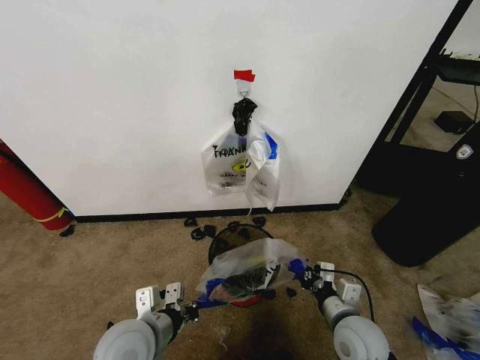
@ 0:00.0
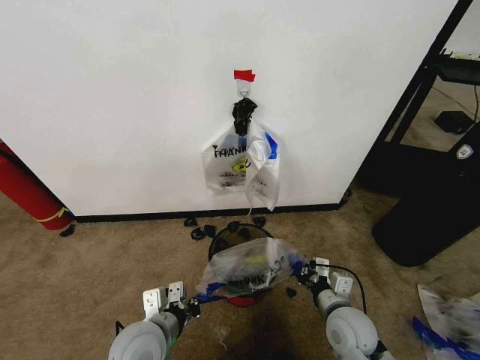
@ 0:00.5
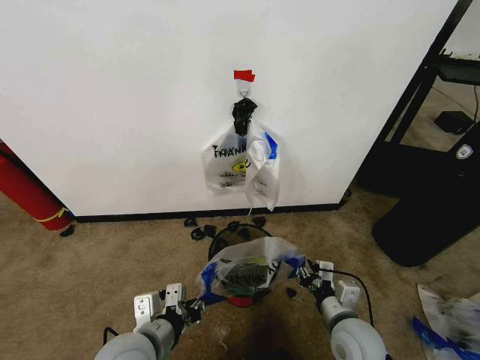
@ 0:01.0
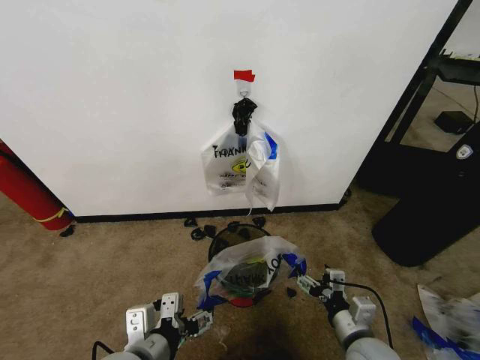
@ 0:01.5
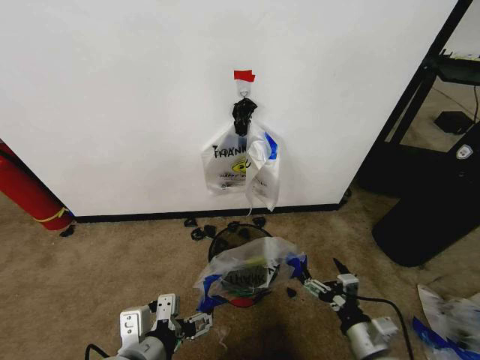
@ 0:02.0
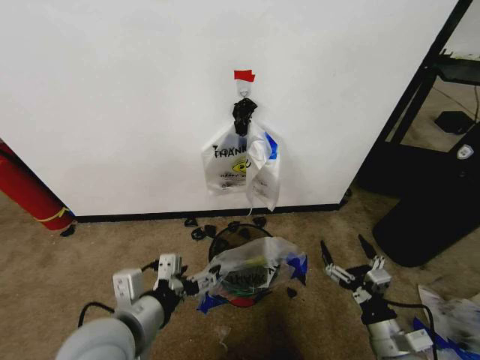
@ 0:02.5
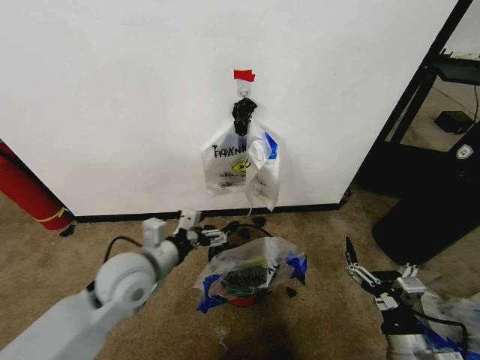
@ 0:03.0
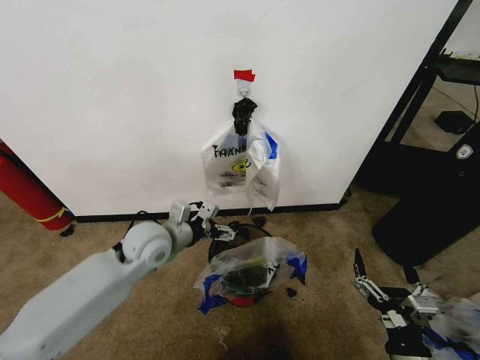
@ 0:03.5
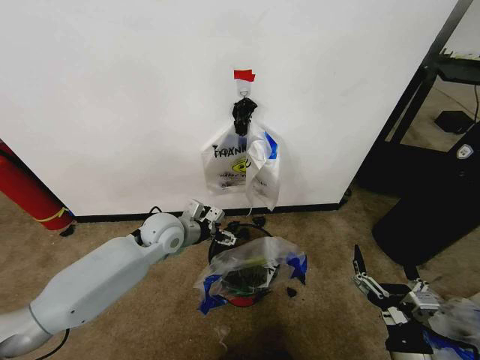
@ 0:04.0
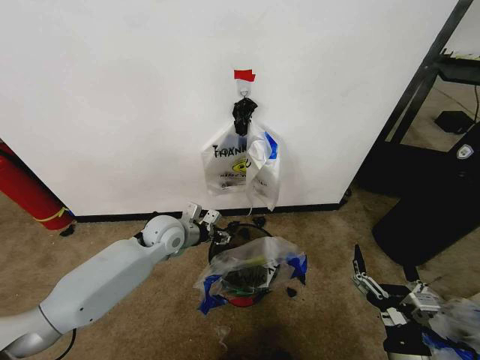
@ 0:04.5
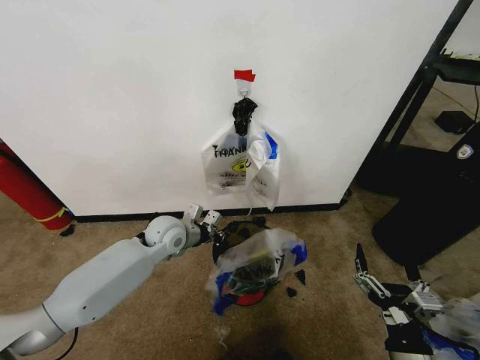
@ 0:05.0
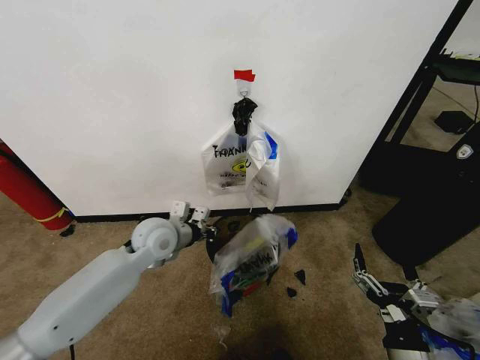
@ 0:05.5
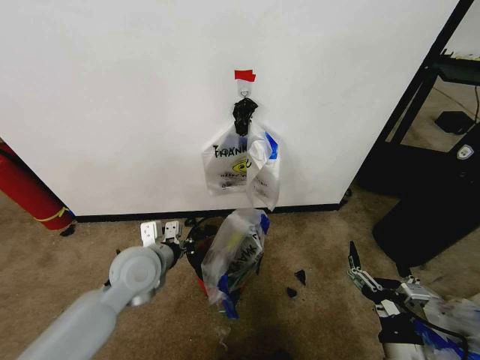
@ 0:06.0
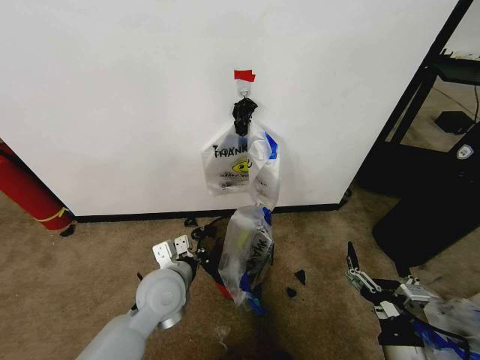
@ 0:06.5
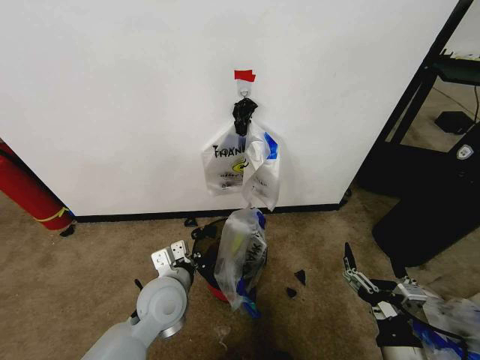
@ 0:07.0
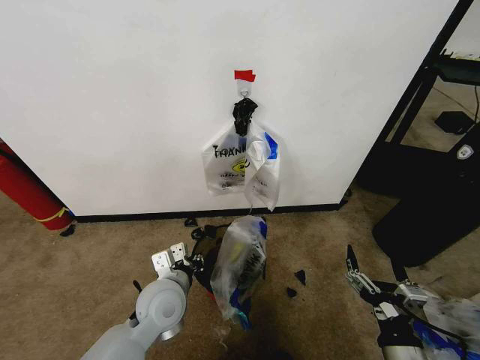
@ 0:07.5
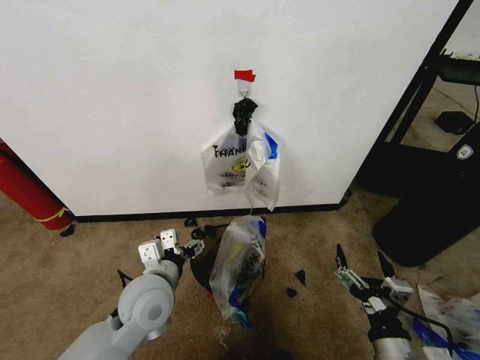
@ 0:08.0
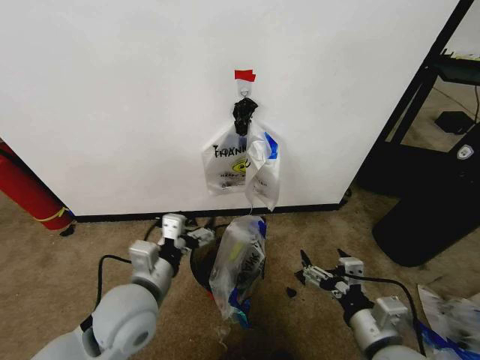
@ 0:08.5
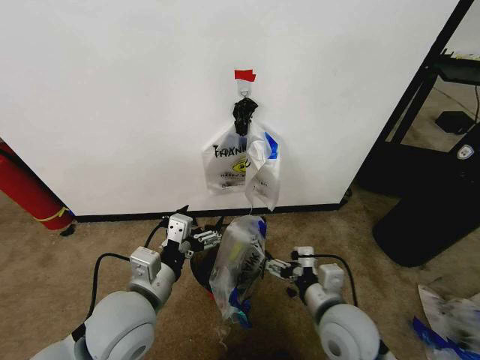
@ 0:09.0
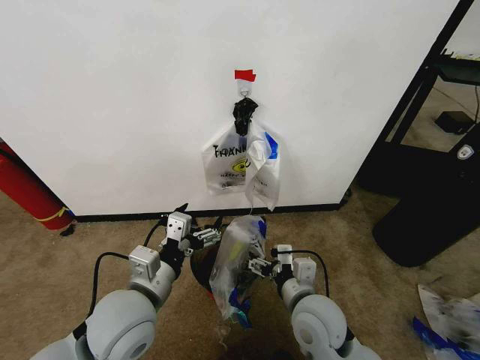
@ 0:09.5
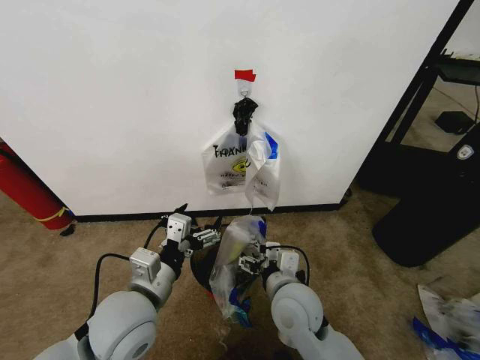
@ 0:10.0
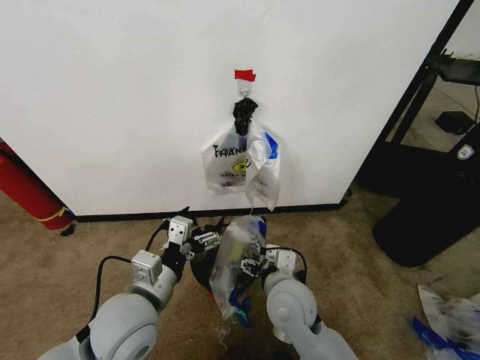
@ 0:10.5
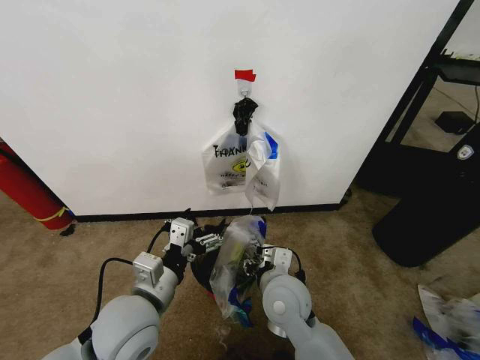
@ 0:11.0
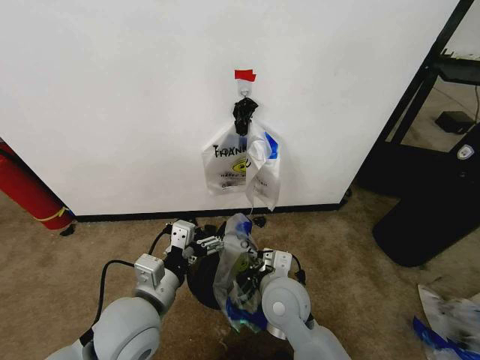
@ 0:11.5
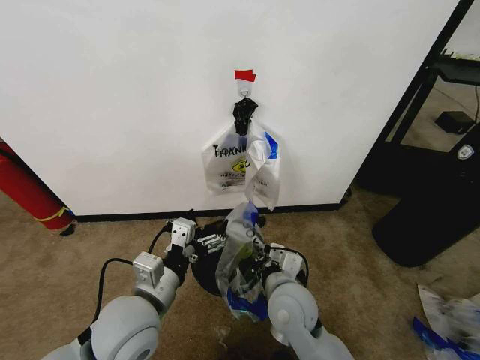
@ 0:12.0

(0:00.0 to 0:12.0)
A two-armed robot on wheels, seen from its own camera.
Task of the whole recording: Pick up the garbage bag from the wall and place it over the trash bin.
0:00.0 - 0:02.0: The right gripper shifts roughly 5 cm backward, and opens up. Meanwhile the left gripper travels backward and upward by approximately 10 cm, and opens its fingers.
0:02.0 - 0:04.0: The left gripper shifts roughly 30 cm forward, while the right gripper goes about 5 cm backward.
0:04.0 - 0:06.0: The left gripper goes about 10 cm backward, and closes its fingers.
0:06.0 - 0:08.0: The left gripper heads backward, covering approximately 5 cm, and opens its fingers.
0:08.0 - 0:10.0: The left gripper shifts by approximately 5 cm; the right gripper goes some 20 cm to the left and forward.
0:10.0 - 0:12.0: The right gripper closes.

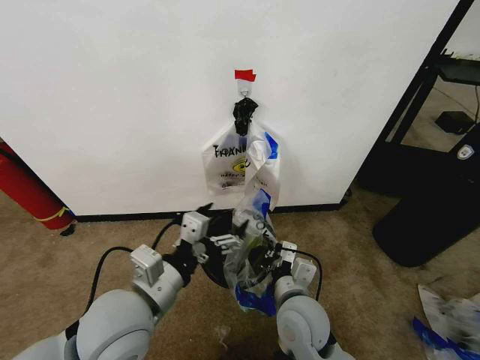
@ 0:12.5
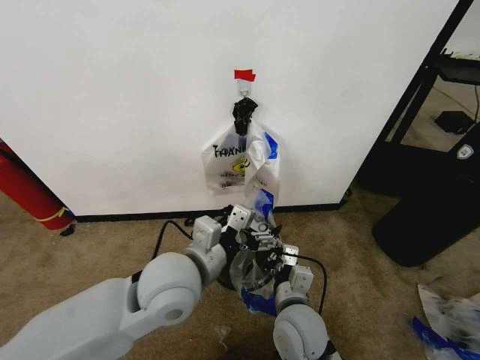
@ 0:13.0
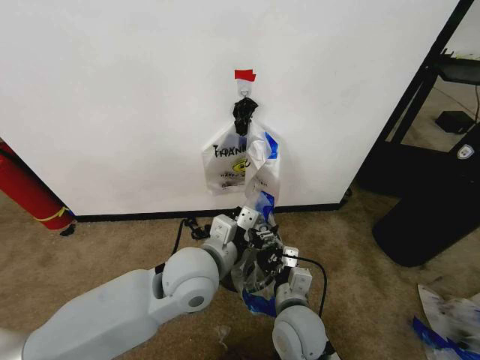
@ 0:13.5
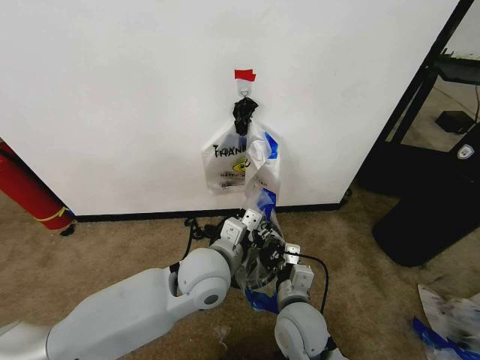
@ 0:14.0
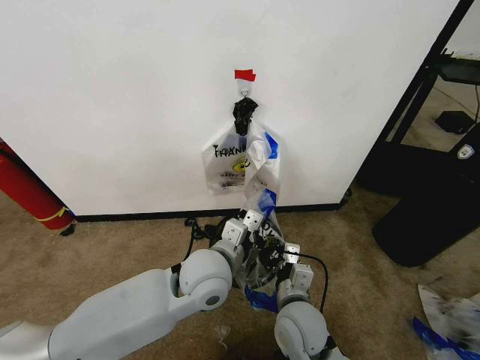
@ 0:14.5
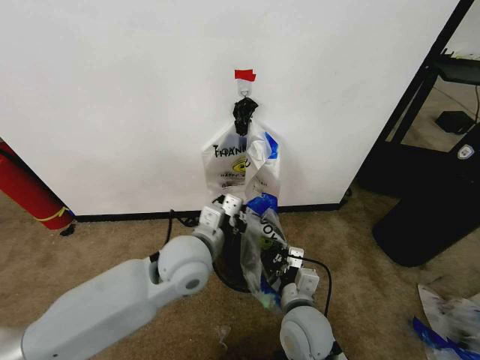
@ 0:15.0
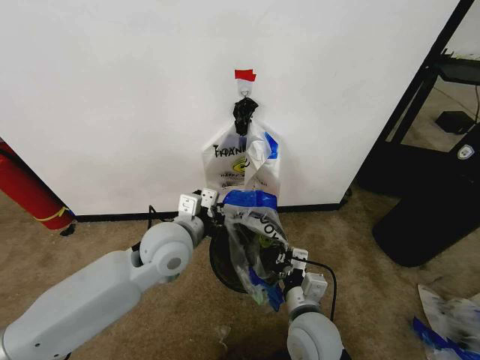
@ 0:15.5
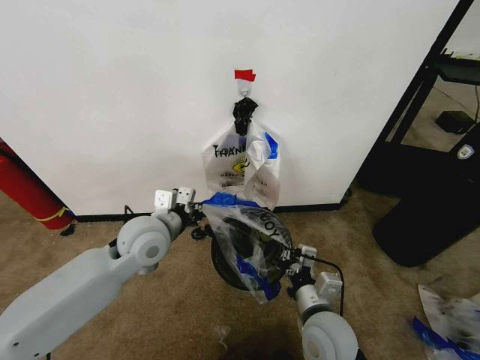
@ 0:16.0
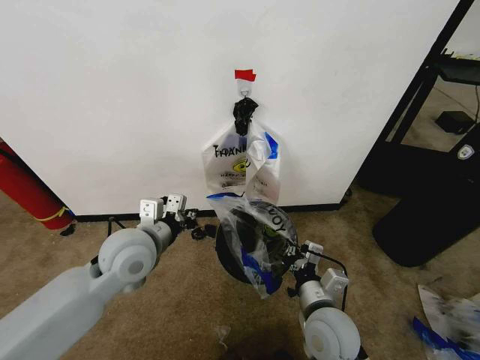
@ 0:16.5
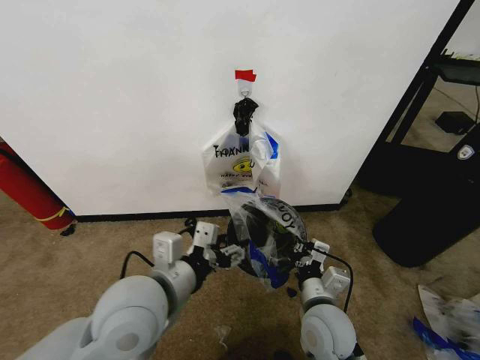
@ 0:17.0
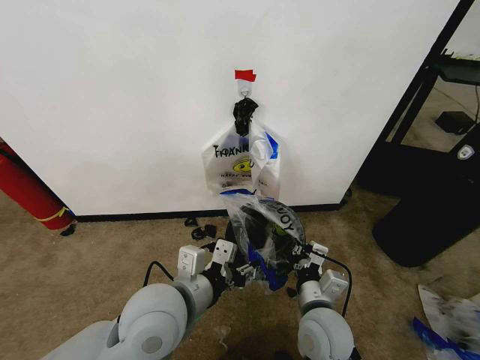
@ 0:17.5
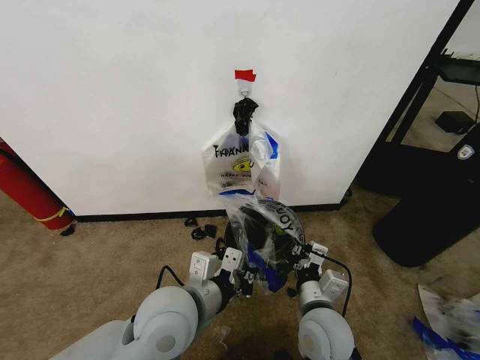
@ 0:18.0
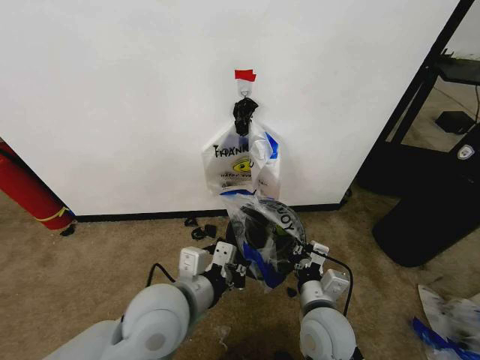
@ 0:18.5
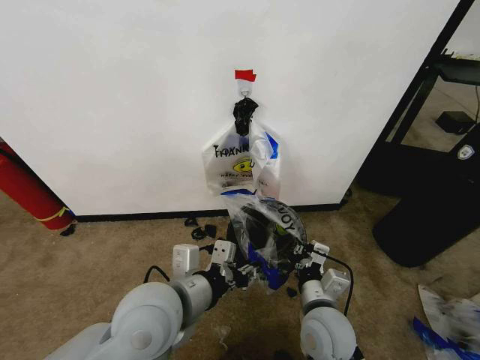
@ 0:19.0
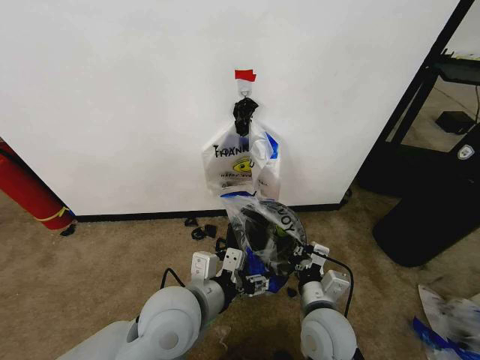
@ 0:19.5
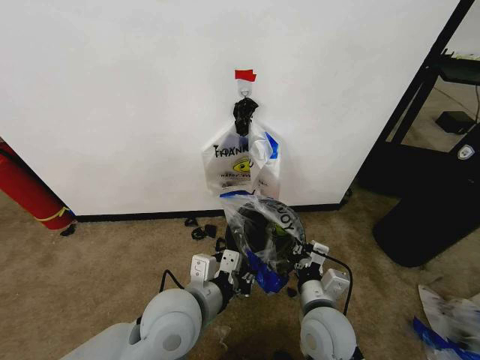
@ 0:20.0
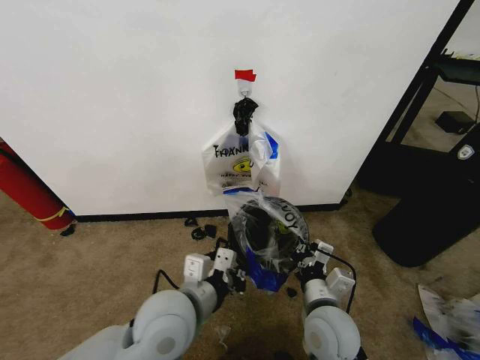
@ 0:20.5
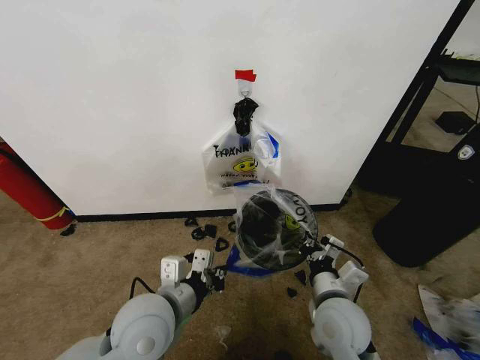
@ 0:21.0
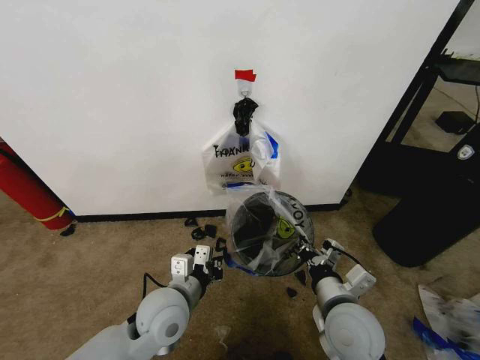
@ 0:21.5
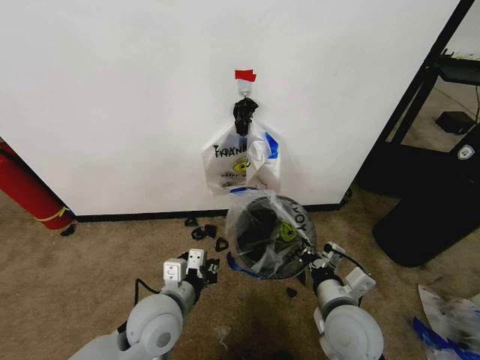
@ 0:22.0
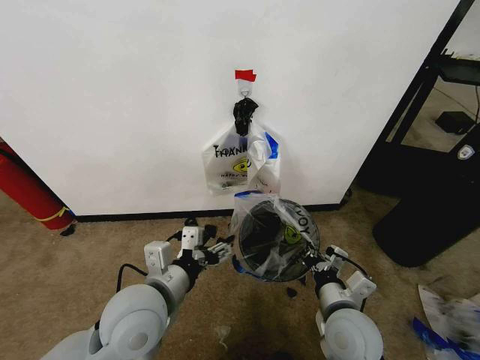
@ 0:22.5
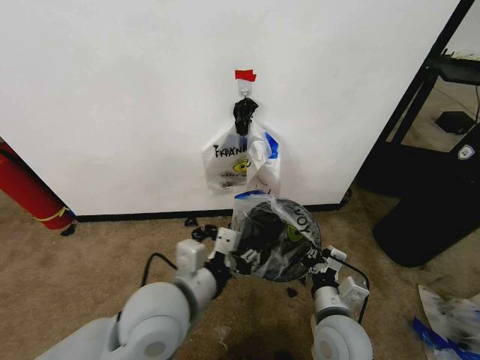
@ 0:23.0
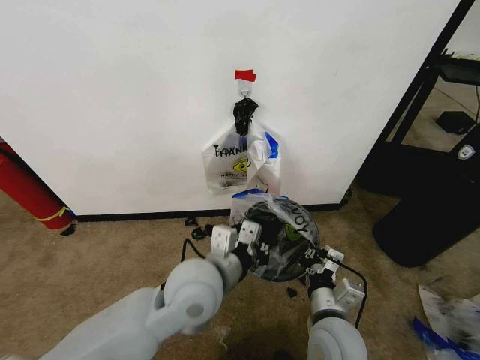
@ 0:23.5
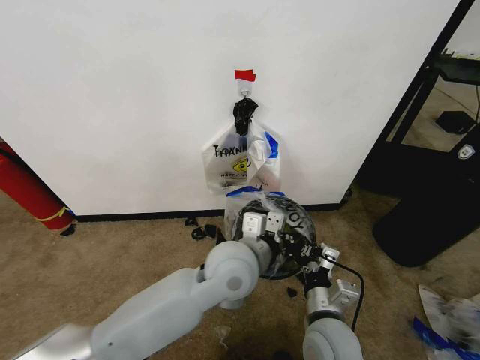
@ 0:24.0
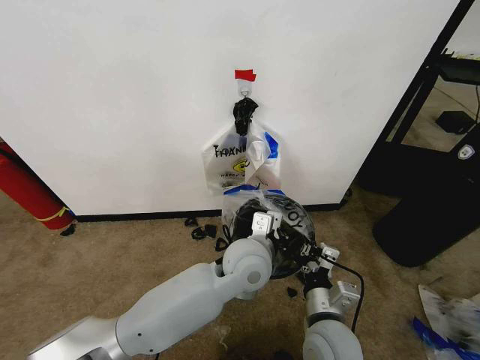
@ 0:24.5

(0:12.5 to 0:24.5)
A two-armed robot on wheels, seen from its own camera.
Task of the whole recording: Pick up the garbage bag from the wall and place it over the trash bin.
0:12.5 - 0:14.5: The left gripper heads to the right and forward, covering approximately 15 cm, and closes its fingers.
0:14.5 - 0:16.5: The left gripper heads to the left, covering about 15 cm. Meanwhile the right gripper goes roughly 5 cm to the right.
0:16.5 - 0:18.5: The left gripper shifts some 15 cm backward and to the right, and opens, then closes again.
0:18.5 - 0:20.5: The left gripper opens, then closes once more.
0:20.5 - 0:22.5: The left gripper reaches some 5 cm downward, then returns, and opens its fingers.
0:22.5 - 0:24.5: The left gripper shifts about 20 cm to the right and forward, and closes its fingers.

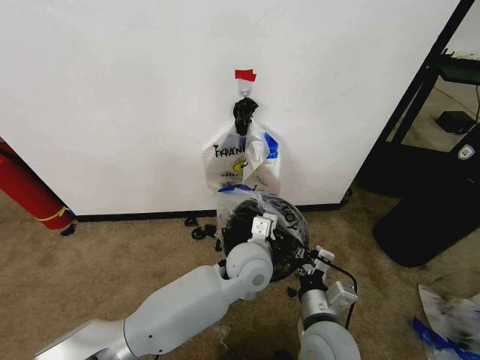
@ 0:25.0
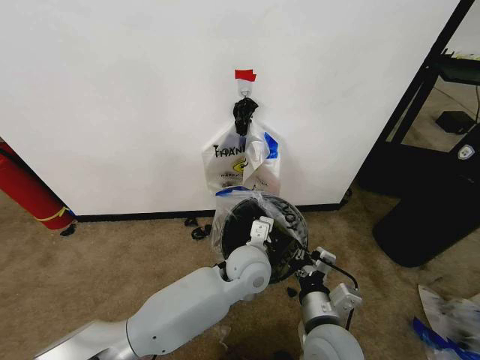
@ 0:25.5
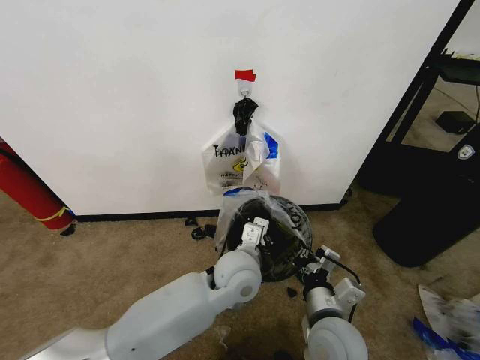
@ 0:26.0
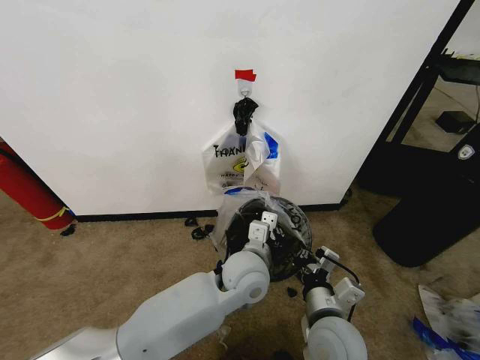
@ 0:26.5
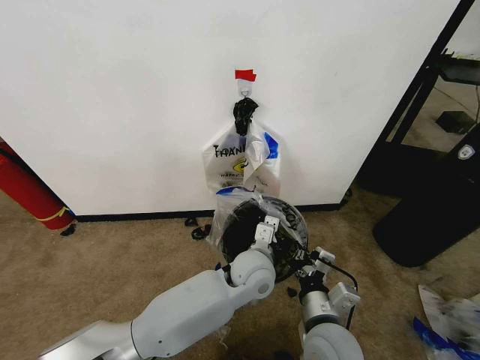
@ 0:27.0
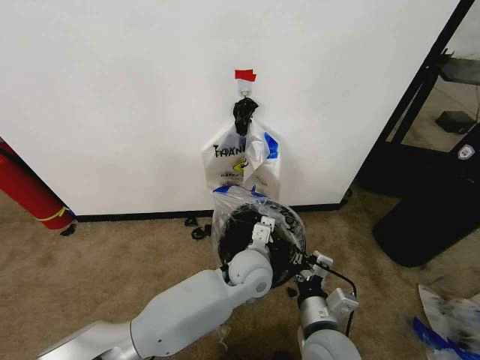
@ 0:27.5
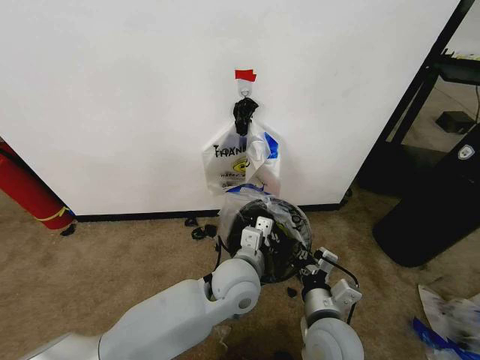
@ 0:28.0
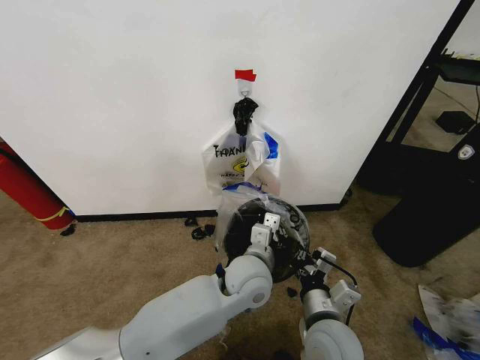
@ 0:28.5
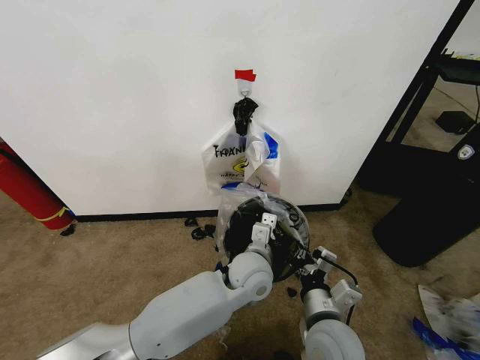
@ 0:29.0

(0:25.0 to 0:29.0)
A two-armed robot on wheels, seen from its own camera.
Task of the whole recording: Pick up the garbage bag from the wall and place it over the trash bin.
0:25.0 - 0:29.0: The grippers make only small movements.
